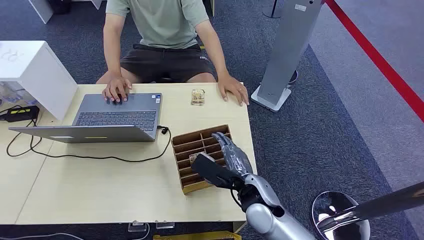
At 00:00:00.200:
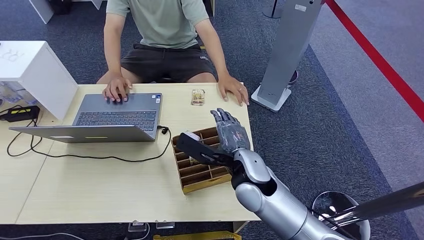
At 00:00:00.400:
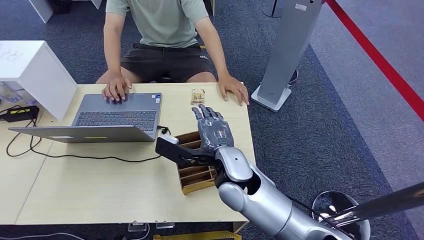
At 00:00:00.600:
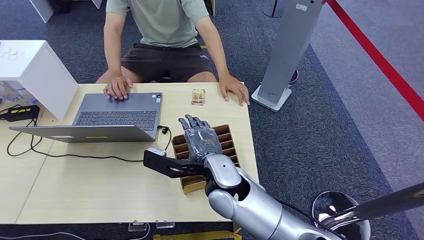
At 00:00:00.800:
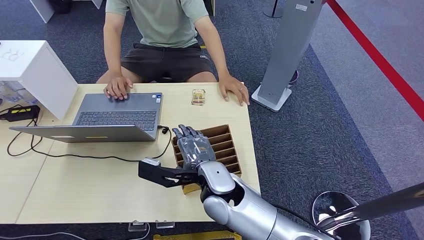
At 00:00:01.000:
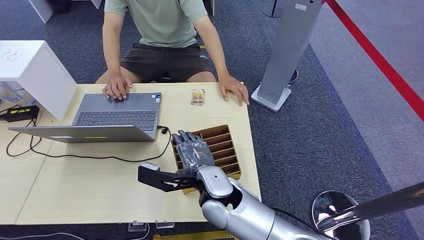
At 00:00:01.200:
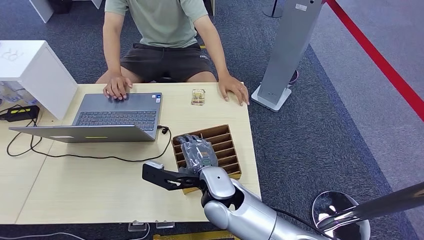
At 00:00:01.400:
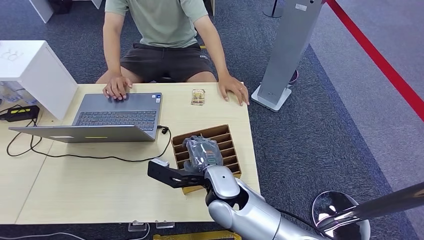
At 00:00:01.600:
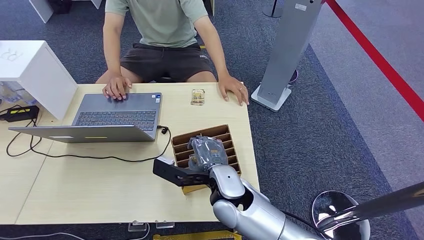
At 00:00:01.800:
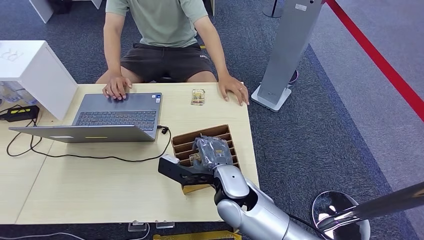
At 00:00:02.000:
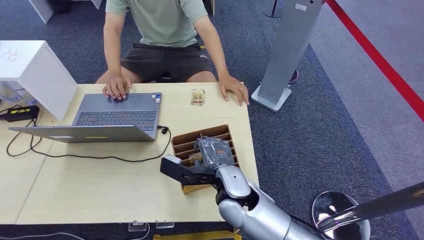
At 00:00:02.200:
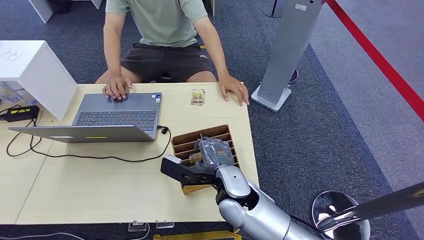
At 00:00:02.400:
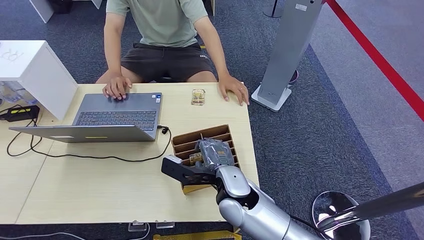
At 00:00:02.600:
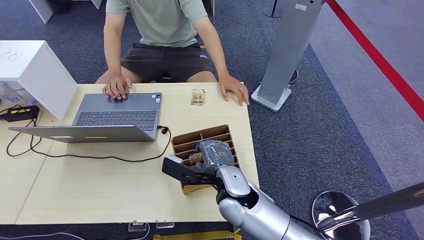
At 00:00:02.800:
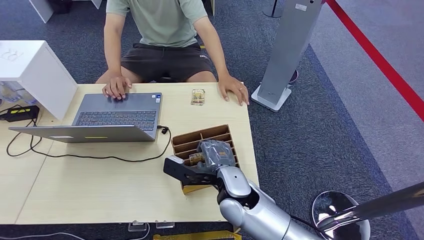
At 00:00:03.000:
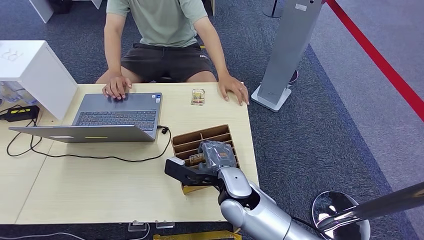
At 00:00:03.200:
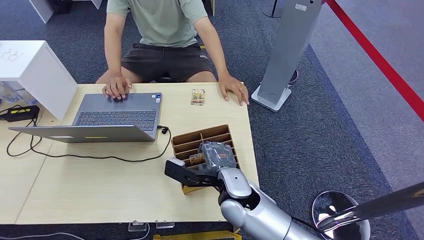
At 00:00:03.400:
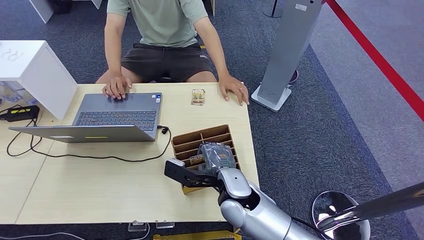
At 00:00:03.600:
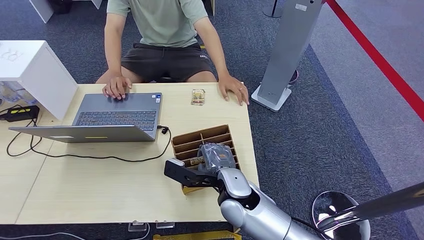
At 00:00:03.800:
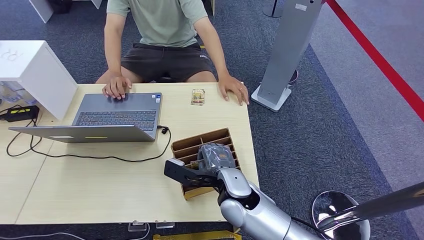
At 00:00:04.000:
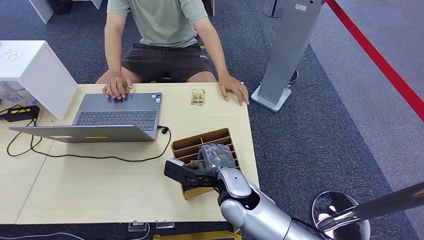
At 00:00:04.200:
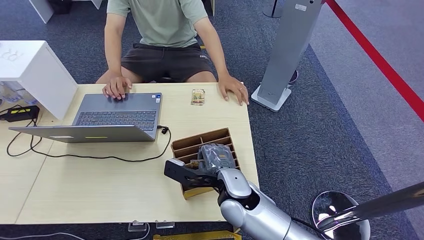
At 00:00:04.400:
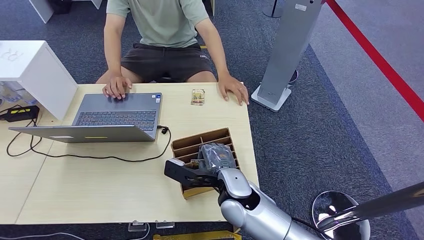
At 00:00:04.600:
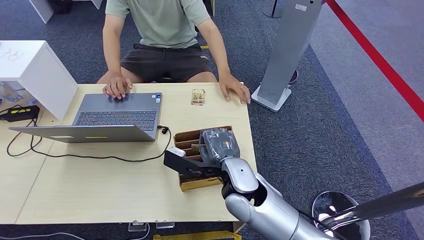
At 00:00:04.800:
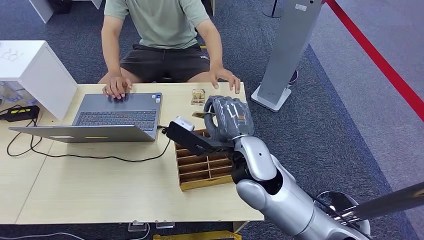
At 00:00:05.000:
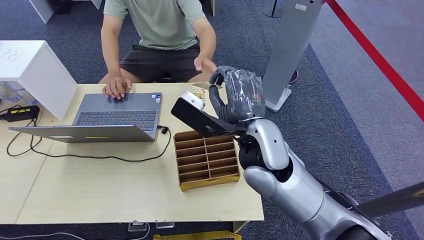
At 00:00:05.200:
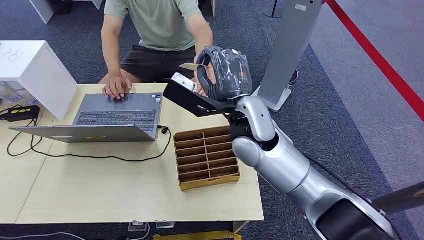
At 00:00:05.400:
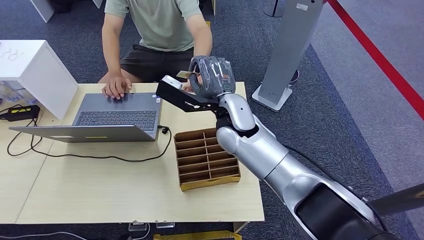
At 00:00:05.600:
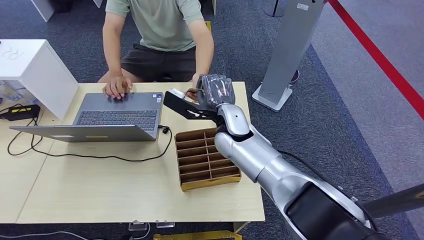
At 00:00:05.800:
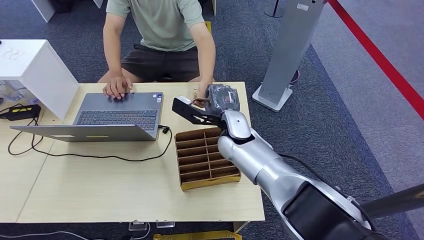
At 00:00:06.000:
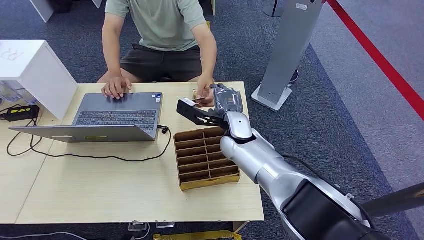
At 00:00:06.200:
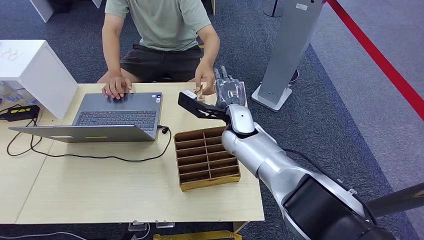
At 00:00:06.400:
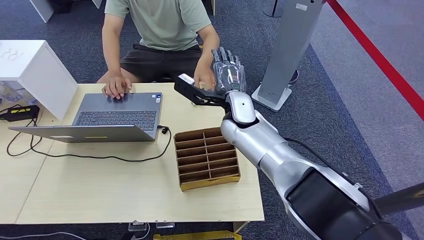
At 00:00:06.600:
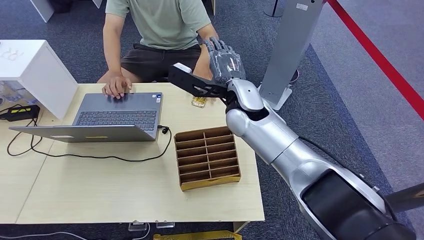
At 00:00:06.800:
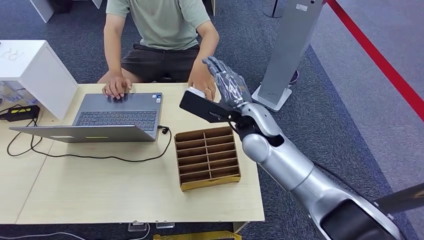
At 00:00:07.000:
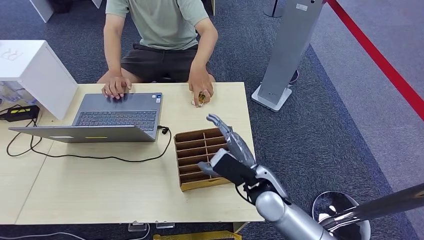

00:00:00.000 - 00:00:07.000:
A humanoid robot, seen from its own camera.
Step, 00:00:00.000 - 00:00:04.800: Pick up the room card from the card holder.
Step, 00:00:05.000 - 00:00:07.000: Hand the room card to the target.
00:00:01.400 - 00:00:02.800: There are only small adjustments of the hands.
00:00:02.800 - 00:00:04.200: Neither hand changes place.
00:00:05.600 - 00:00:07.000: The right hand goes some 15 cm backward, to the right and downward.
